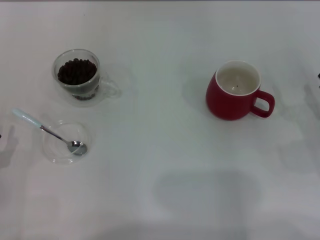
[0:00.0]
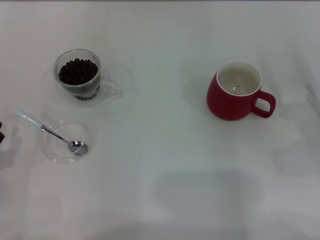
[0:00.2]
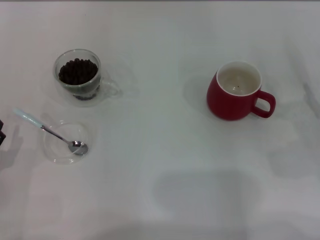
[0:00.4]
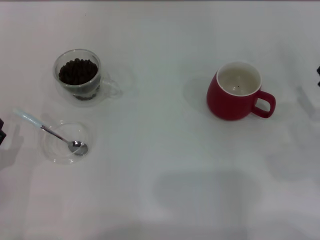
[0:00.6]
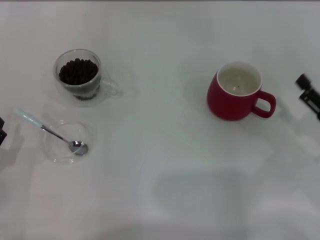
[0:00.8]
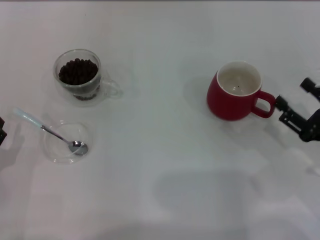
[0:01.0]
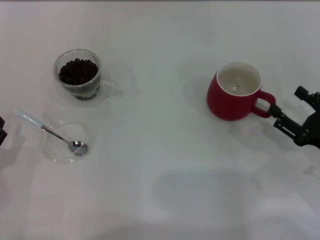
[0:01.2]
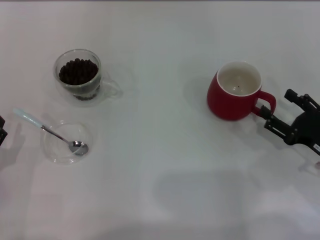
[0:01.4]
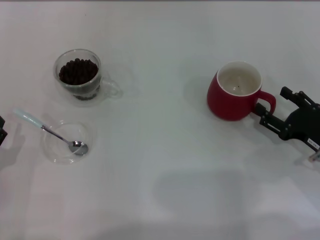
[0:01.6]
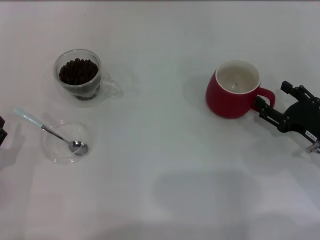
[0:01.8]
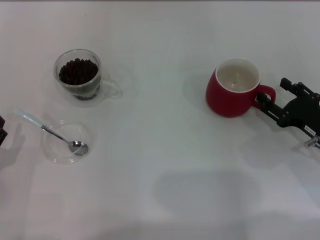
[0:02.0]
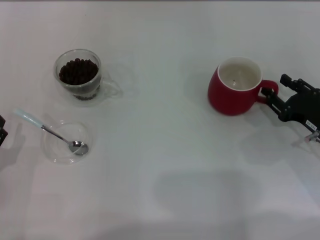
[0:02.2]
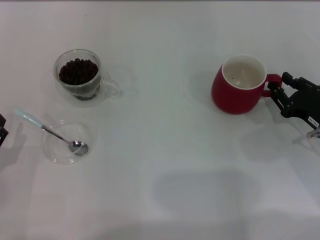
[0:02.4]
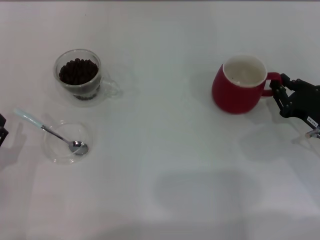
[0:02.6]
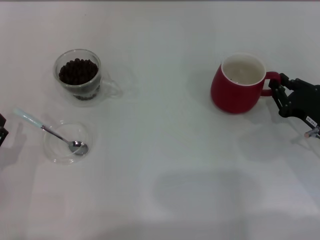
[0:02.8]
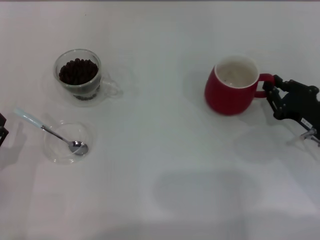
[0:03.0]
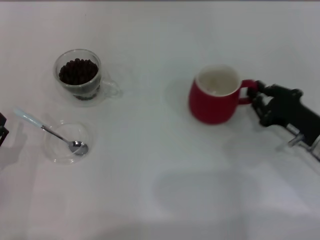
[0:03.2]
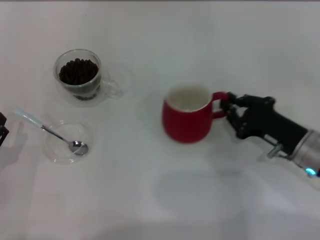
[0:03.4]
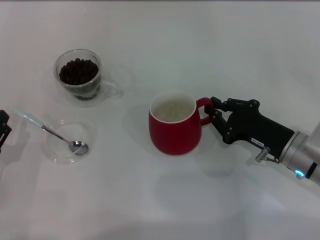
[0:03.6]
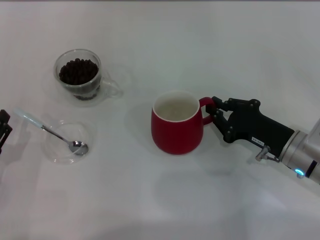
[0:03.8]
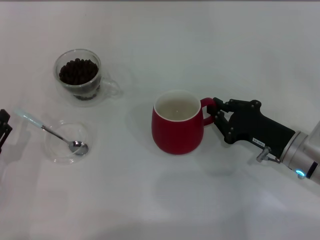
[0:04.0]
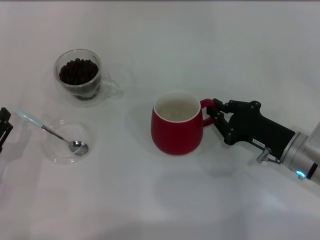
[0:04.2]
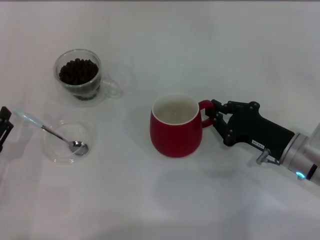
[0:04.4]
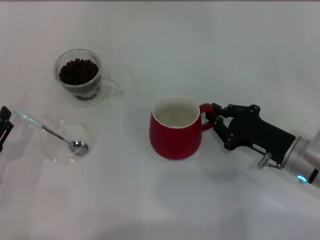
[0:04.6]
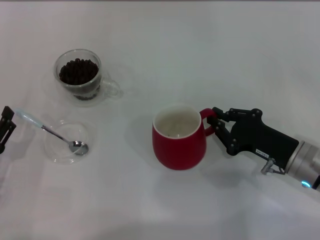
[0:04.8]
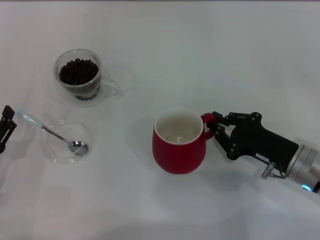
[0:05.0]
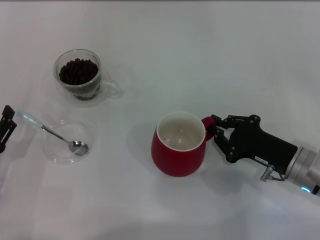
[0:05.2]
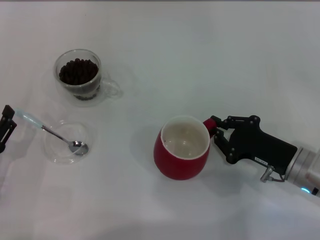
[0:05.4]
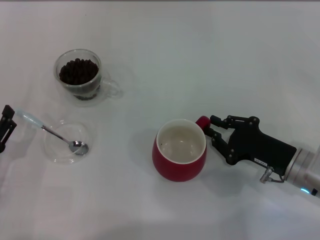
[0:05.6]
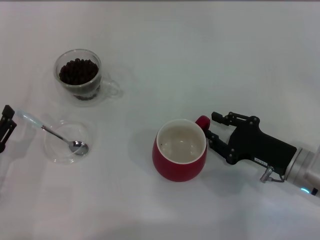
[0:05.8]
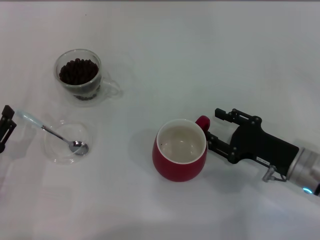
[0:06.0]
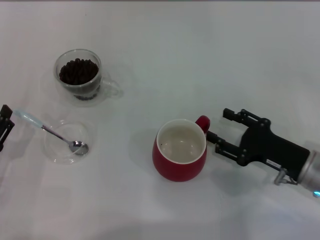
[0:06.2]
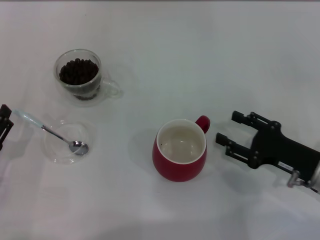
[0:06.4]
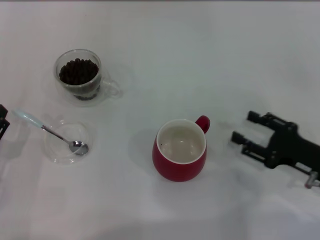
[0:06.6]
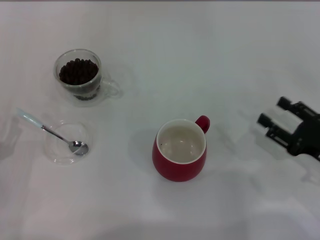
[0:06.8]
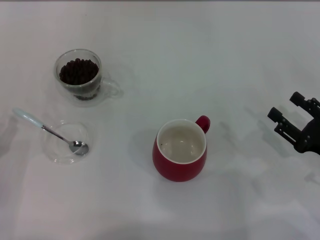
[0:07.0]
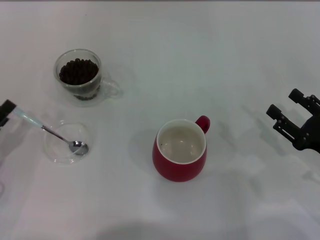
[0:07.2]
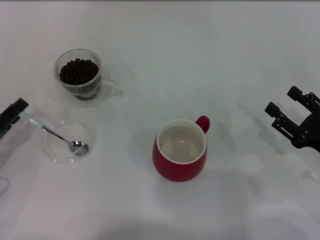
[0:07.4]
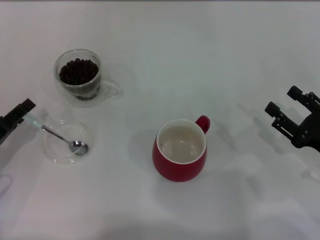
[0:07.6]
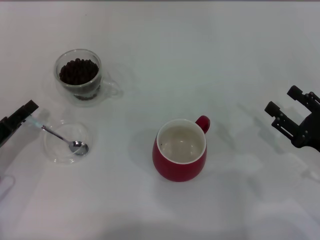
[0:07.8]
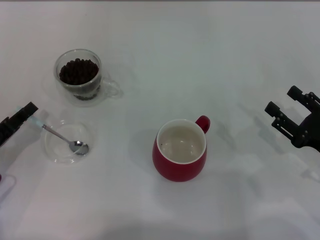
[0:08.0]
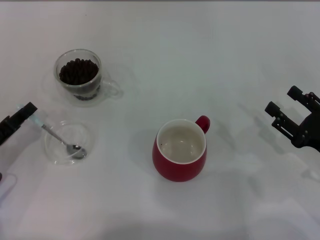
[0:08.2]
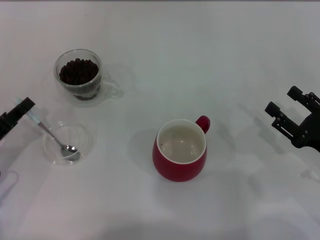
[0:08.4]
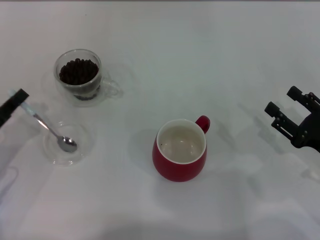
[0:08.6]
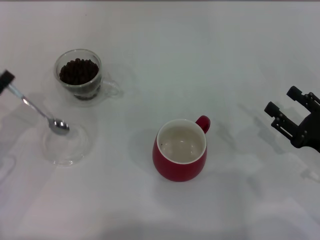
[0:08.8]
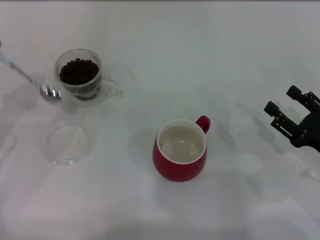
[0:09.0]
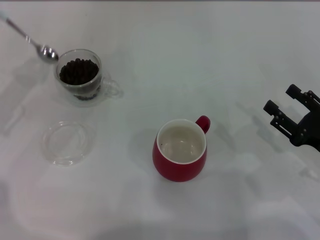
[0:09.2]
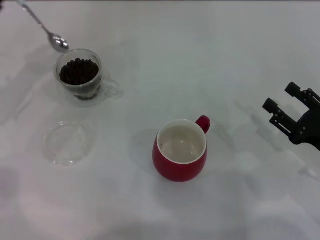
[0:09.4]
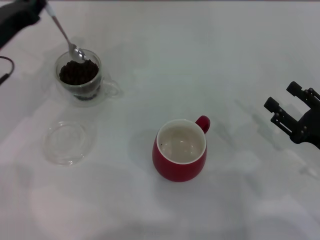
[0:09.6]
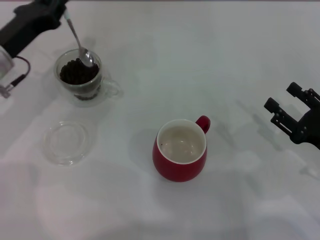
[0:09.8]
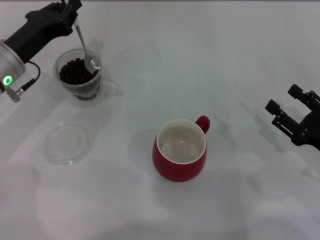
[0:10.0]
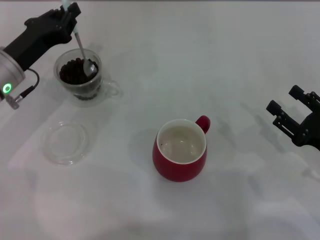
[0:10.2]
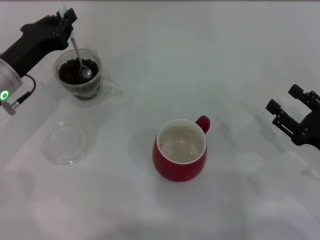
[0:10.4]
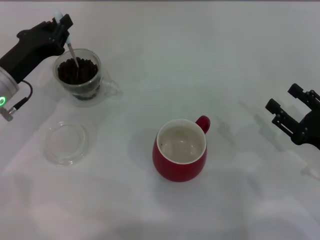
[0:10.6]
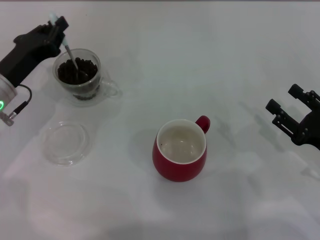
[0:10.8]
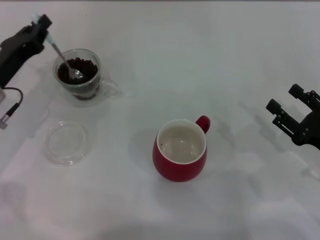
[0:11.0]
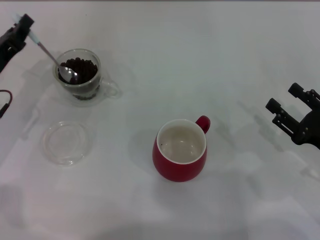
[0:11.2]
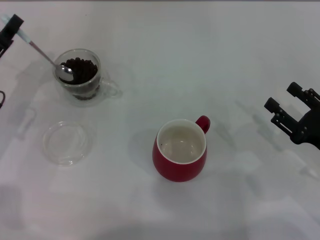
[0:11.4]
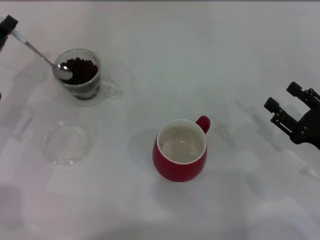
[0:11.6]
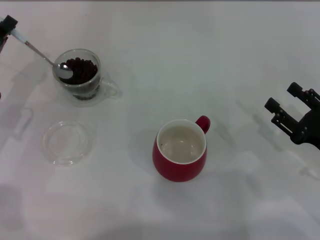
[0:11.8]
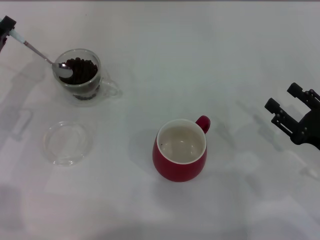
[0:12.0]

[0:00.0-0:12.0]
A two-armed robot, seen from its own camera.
Task of the whole recording: Use a blue spoon to take out the coffee beans from the glass and pour them into the red cup.
Step, 6.6 to 8.8 s: Pick up the spoon with the right gripper.
1.6 to 3.0 s: The right gripper closes up.
3.0 to 4.4 s: The right gripper travels to the left by about 5 cm.
4.4 to 6.0 s: The right gripper opens up.
6.0 to 7.6 s: The left gripper goes about 5 cm forward. Meanwhile the right gripper moves to the right, approximately 5 cm.
7.6 to 9.0 s: The left gripper travels upward by roughly 5 cm, and closes up.
9.0 to 10.4 s: The left gripper heads to the right and forward, covering some 10 cm.
10.4 to 12.0 s: The left gripper is displaced to the left by approximately 5 cm.

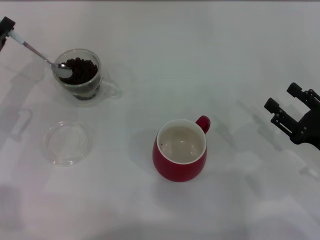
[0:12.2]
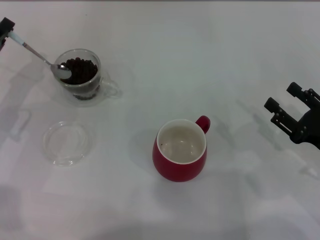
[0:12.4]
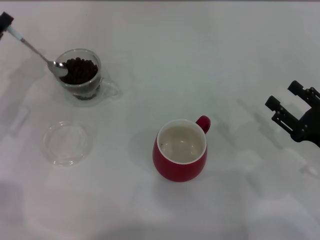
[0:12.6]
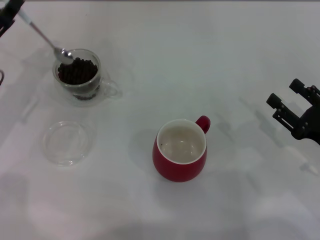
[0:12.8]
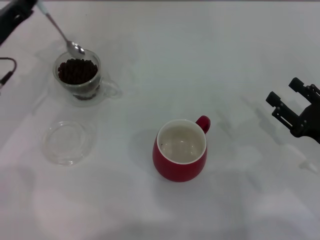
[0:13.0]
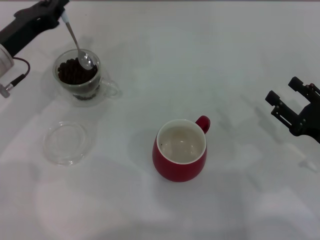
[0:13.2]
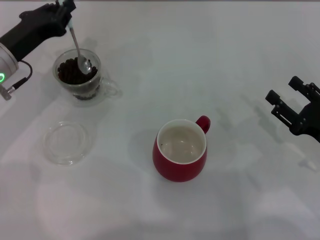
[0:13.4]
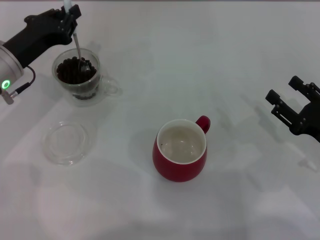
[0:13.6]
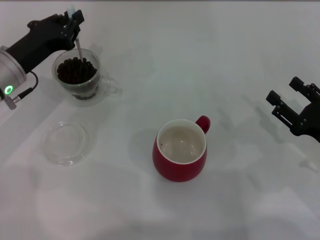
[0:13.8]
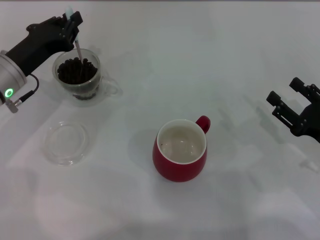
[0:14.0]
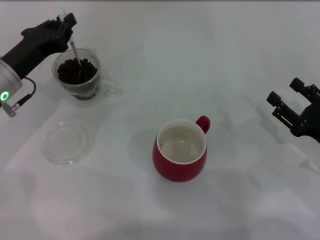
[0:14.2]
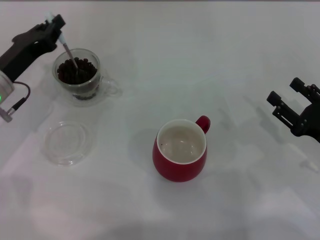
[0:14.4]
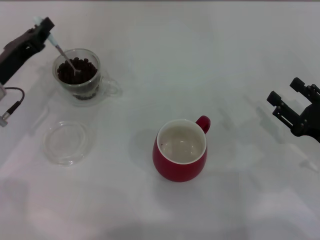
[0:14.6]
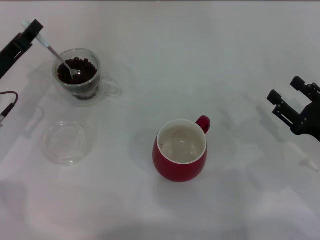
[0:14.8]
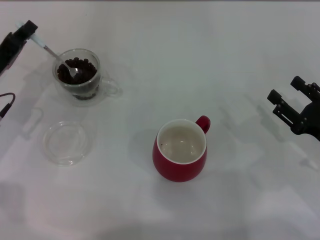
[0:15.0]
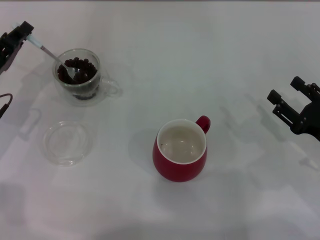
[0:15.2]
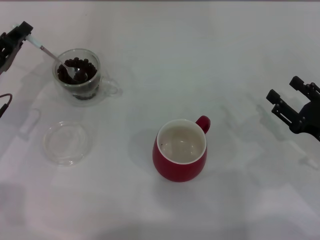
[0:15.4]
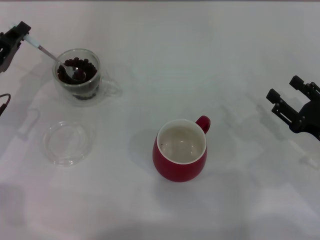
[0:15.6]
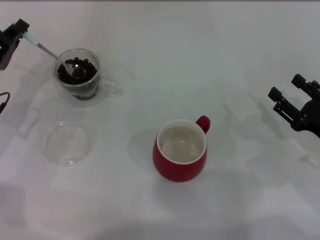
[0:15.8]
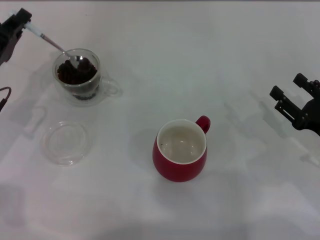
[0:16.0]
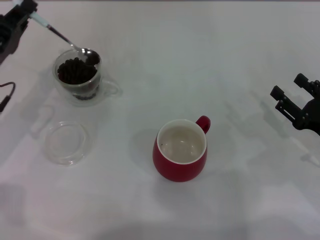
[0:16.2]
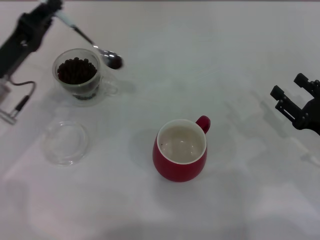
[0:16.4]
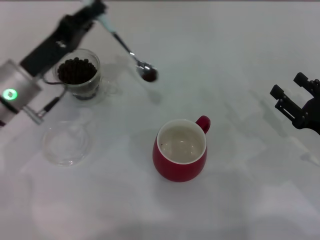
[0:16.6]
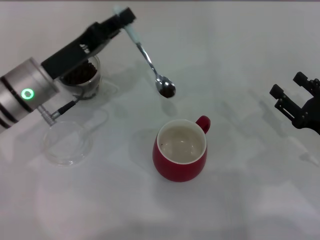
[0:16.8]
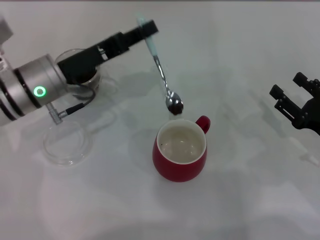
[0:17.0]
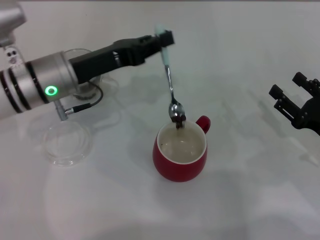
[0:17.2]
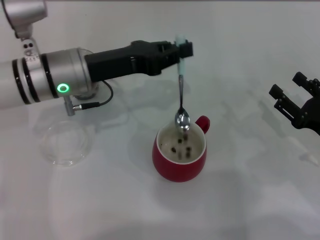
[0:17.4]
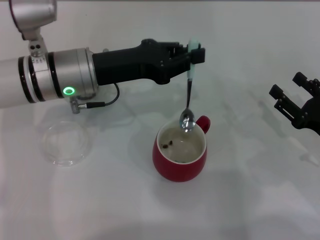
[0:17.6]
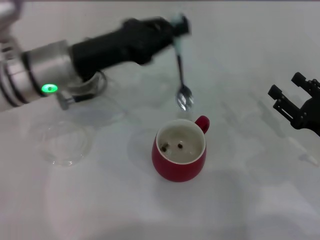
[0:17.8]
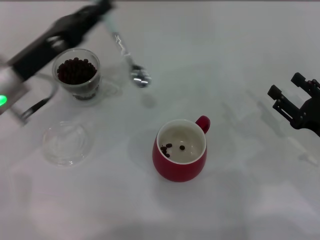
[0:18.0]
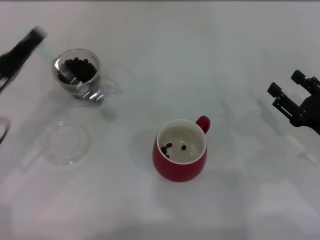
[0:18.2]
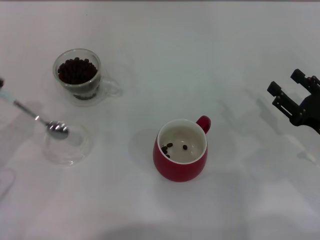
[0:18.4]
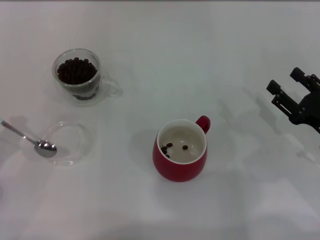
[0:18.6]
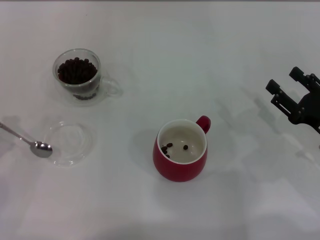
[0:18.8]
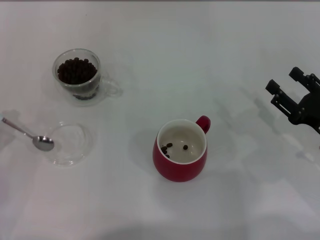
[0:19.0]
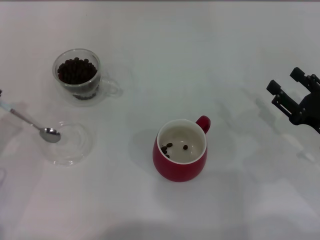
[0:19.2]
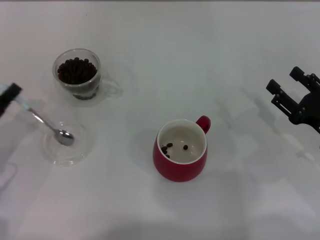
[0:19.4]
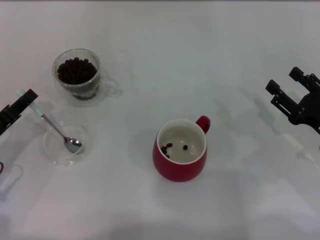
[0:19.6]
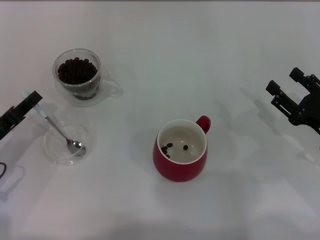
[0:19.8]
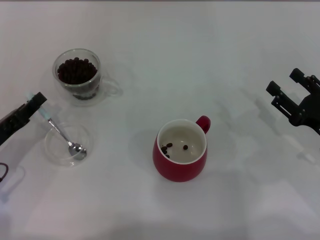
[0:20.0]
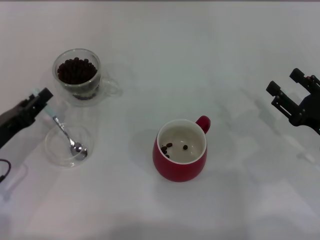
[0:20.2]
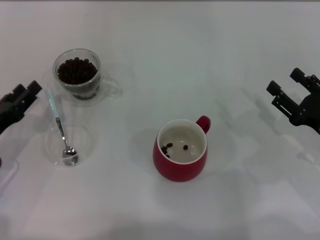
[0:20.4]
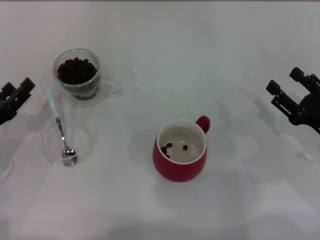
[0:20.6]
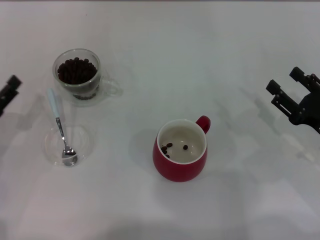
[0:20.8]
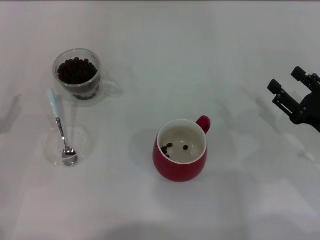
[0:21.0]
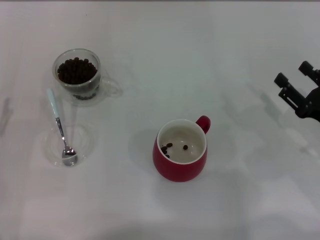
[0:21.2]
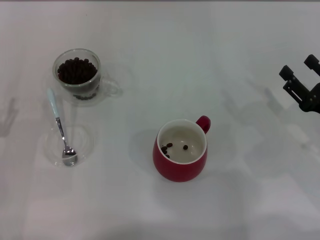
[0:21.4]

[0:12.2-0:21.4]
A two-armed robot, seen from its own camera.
Task of the whole recording: Use a blue spoon to take out the coffee beans from the glass and pour them into the red cup.
12.2 to 13.8 s: The left gripper is displaced to the right by approximately 5 cm.
13.8 to 15.2 s: The left gripper changes place by roughly 5 cm.
15.2 to 16.8 s: The left gripper heads to the right, covering roughly 10 cm.
16.8 to 18.4 s: The left gripper travels to the left and backward by some 20 cm.
18.4 to 19.8 s: The grippers stay close to where they were, moving slightly.
19.8 to 21.4 s: The left gripper opens.

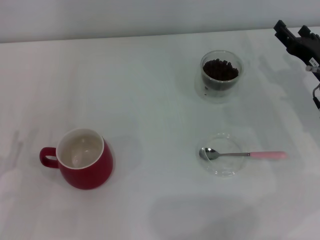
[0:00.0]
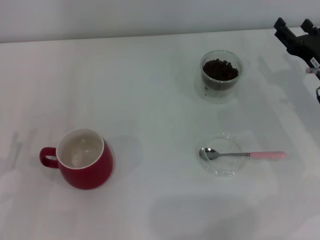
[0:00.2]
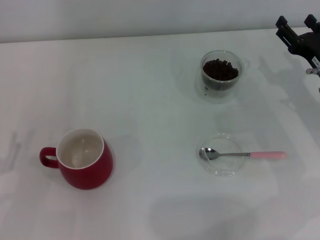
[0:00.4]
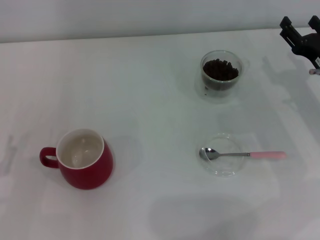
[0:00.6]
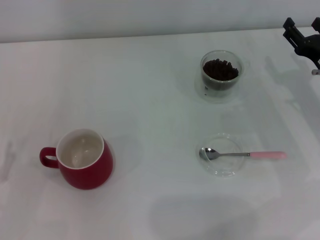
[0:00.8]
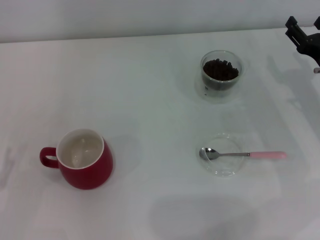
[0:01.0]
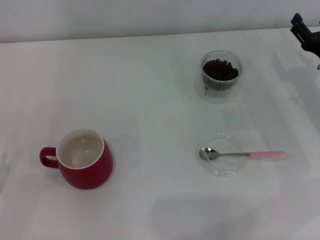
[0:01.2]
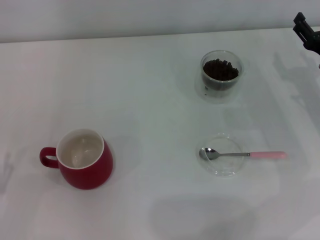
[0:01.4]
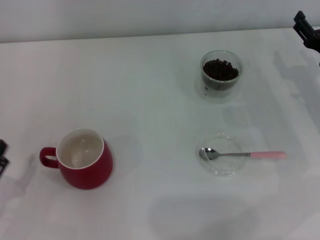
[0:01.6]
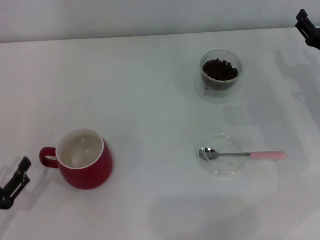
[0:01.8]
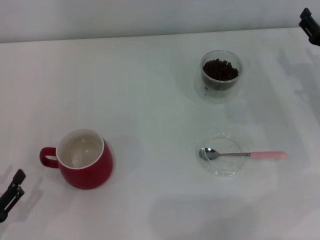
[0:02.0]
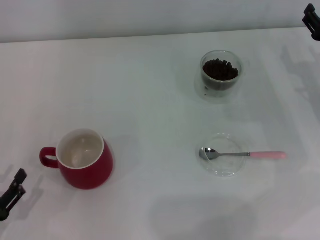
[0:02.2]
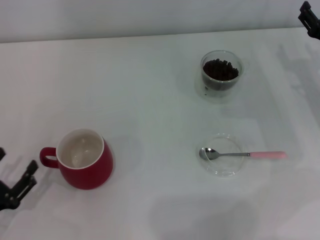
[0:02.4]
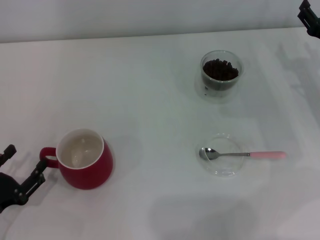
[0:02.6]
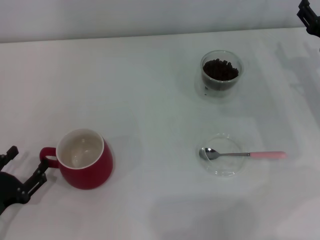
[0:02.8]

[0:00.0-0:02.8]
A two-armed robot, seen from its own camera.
Task of the whole recording: Use a pink spoon to take out the coffee beans from the glass and pour them into the red cup.
0.0 to 1.4 s: The grippers stay close to where they were, moving slightly.
